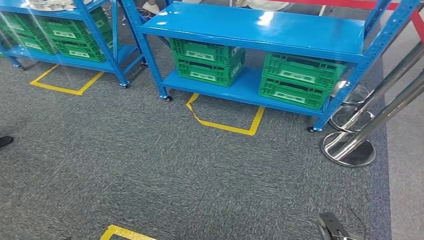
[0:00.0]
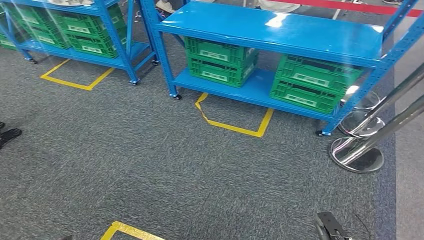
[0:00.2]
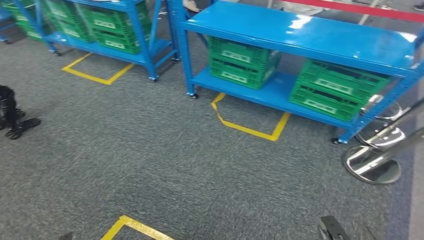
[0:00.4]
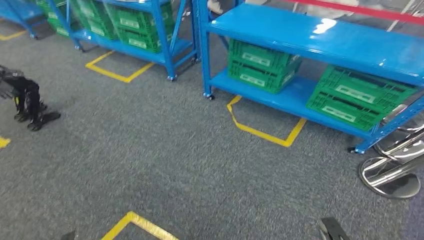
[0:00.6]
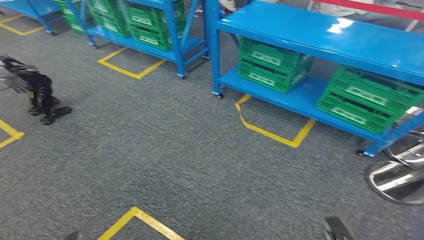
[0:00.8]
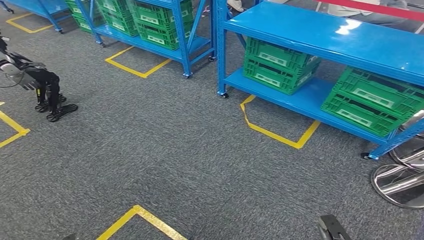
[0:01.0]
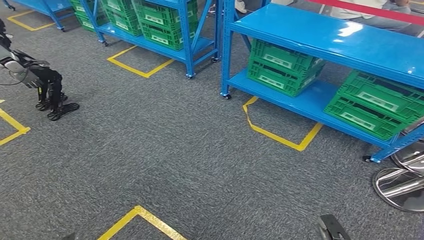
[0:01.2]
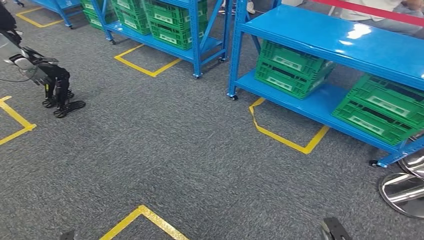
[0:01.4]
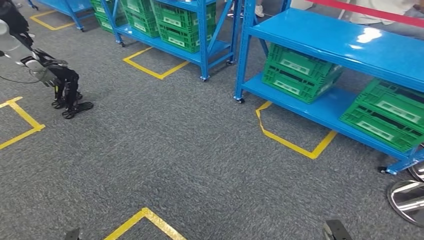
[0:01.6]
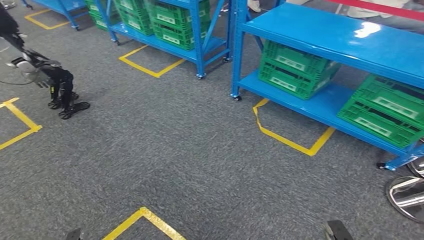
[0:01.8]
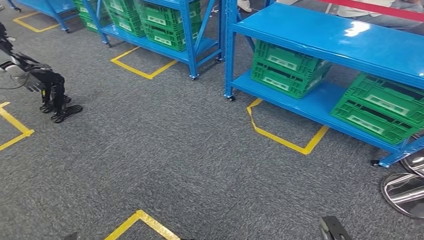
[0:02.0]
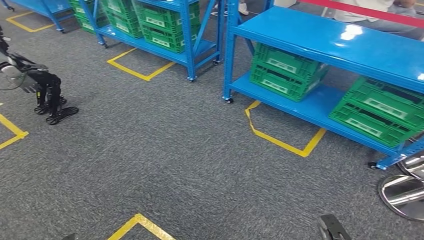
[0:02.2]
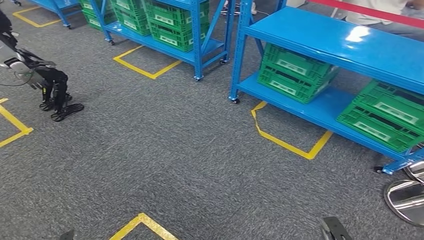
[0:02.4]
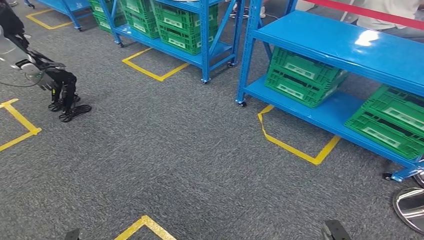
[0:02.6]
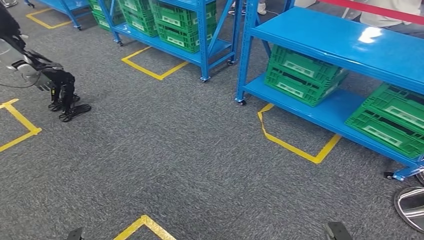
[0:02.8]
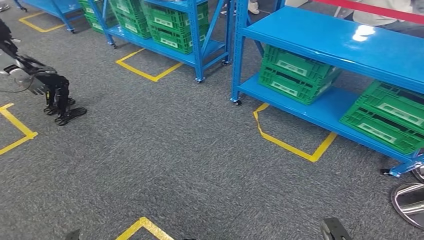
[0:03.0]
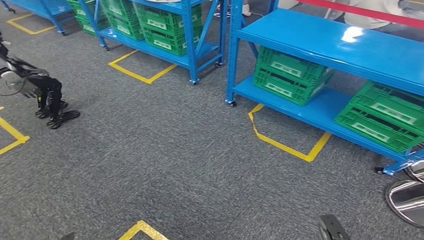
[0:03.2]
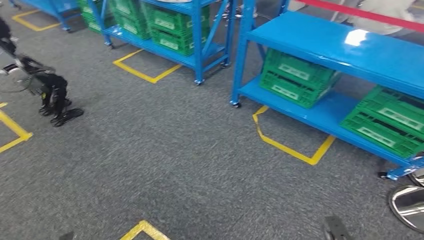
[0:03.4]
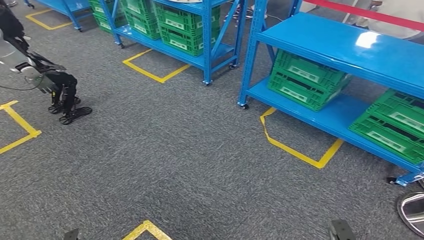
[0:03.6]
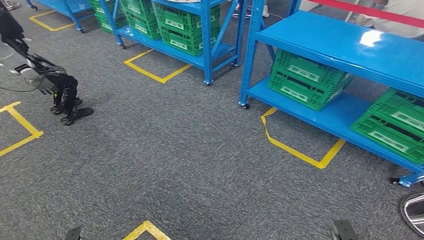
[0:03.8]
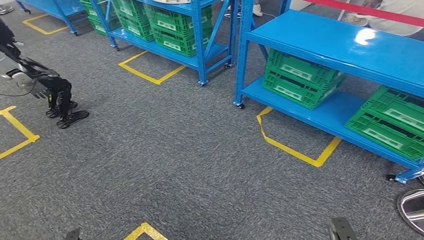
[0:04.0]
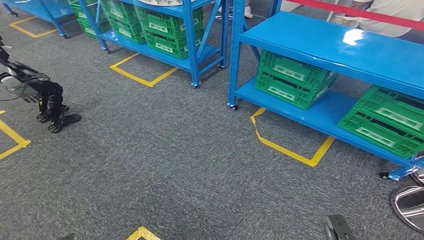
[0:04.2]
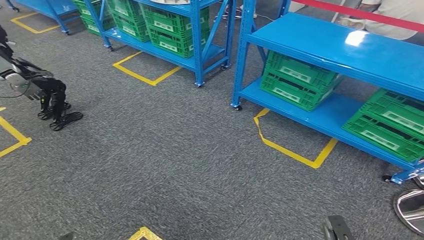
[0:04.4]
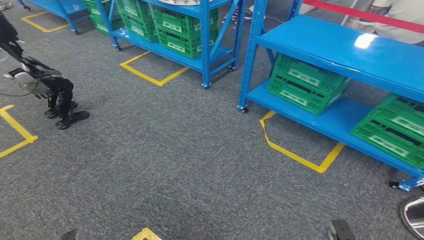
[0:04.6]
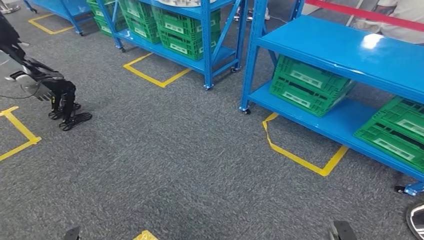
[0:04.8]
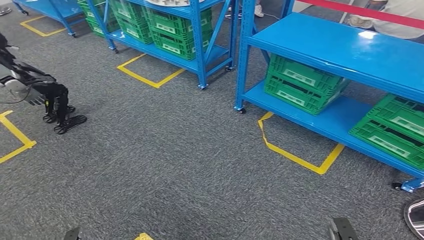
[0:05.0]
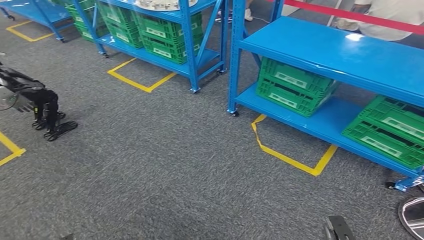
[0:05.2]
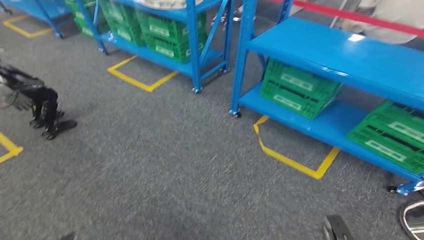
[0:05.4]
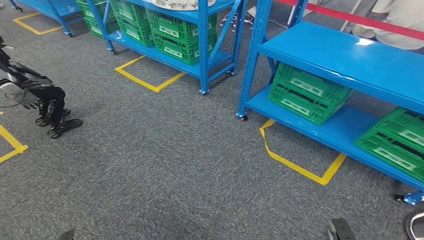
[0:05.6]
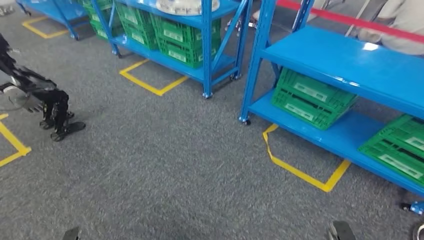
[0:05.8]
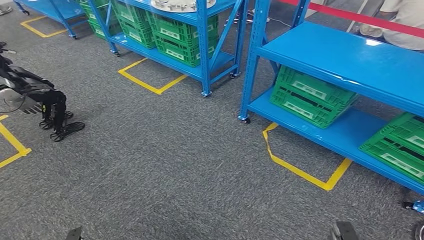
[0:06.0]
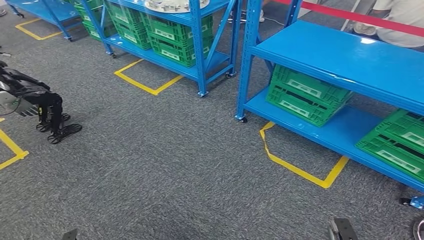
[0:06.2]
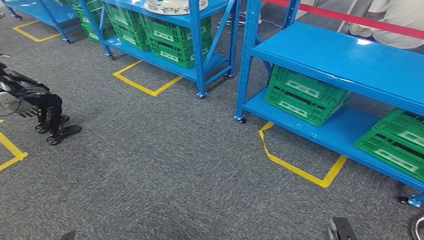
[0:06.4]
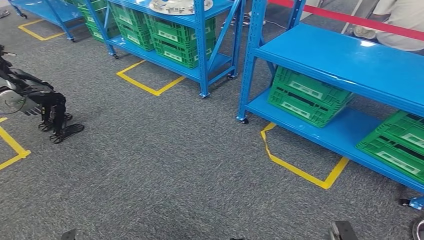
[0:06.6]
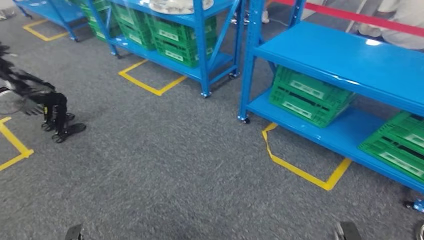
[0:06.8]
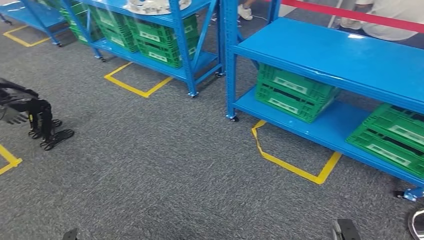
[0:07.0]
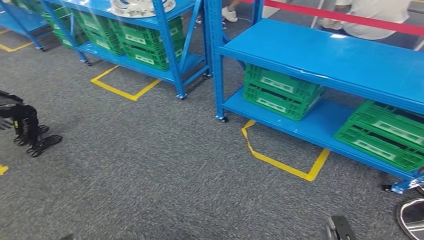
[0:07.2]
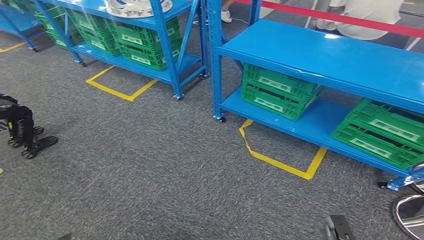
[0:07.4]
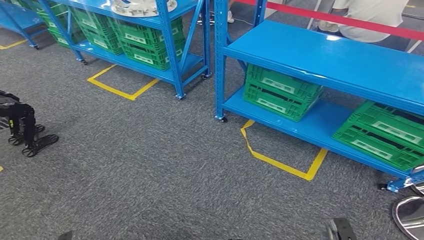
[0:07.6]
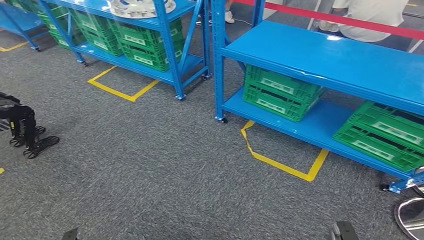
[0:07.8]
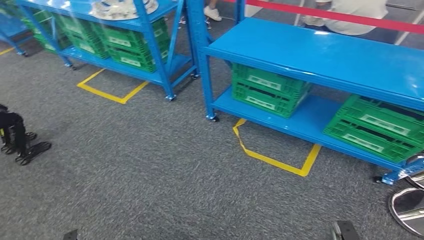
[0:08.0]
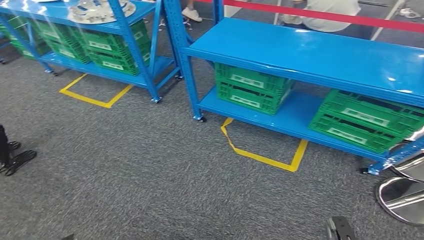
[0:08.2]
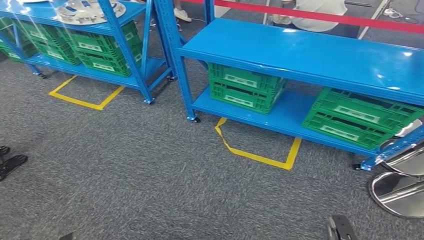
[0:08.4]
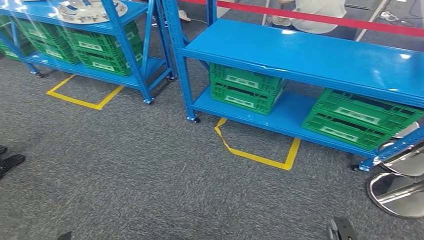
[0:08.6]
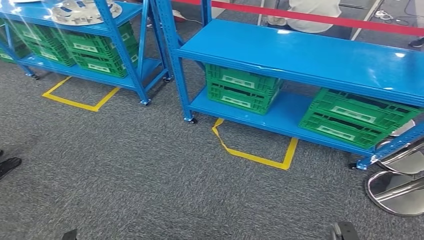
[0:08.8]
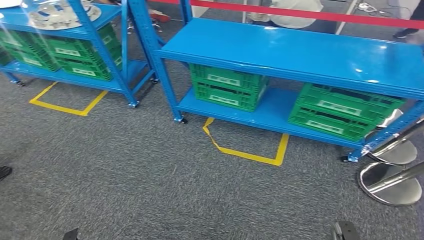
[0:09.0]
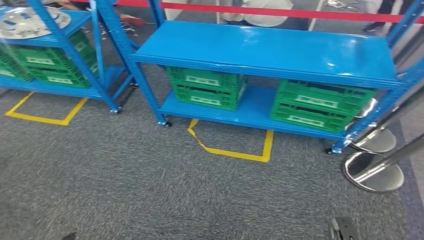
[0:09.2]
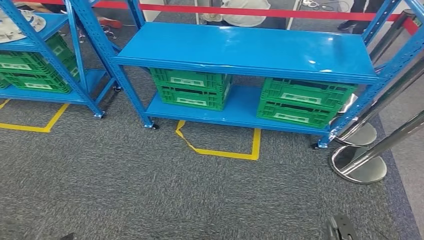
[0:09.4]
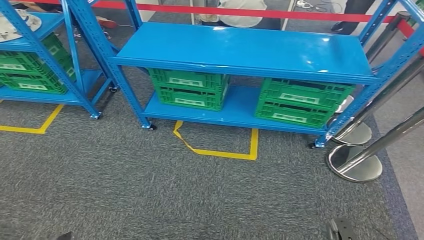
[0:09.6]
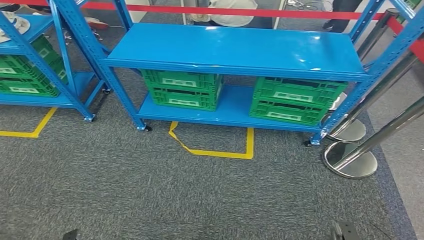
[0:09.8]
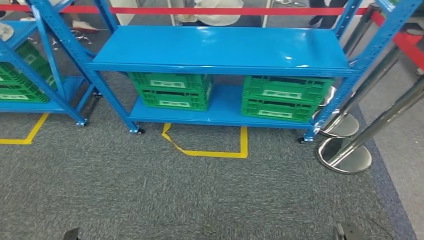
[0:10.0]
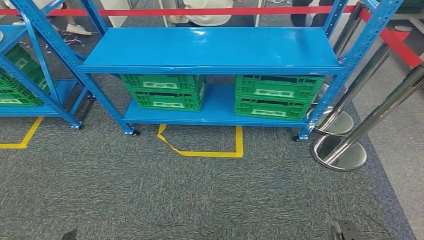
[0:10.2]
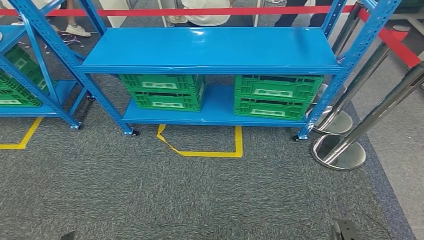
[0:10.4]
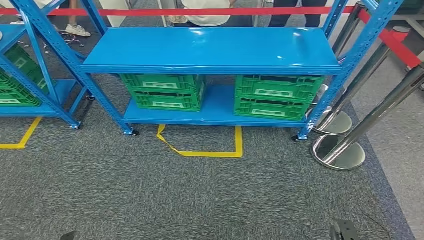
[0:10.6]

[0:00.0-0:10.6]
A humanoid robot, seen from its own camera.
Step, 0:00.0 to 0:10.4: Return to the initial position at the workbench.
0:01.6 to 0:03.0: Both hands stay put.

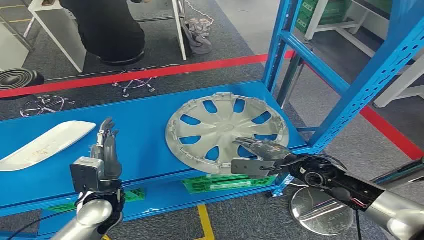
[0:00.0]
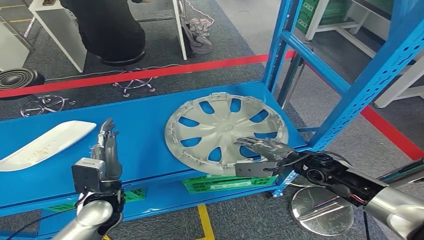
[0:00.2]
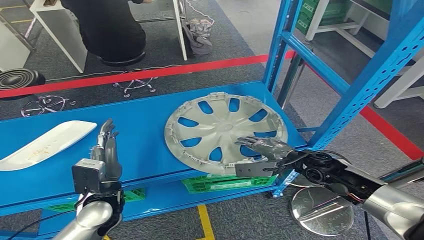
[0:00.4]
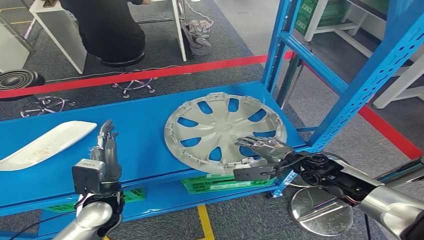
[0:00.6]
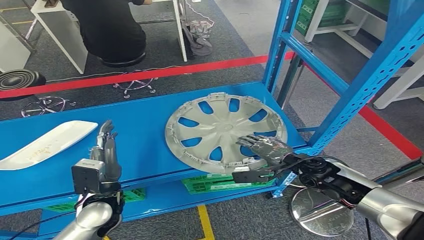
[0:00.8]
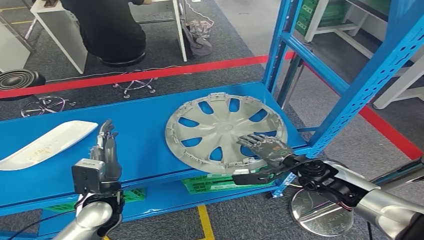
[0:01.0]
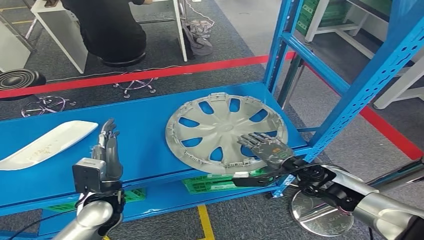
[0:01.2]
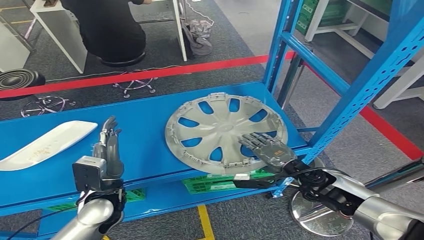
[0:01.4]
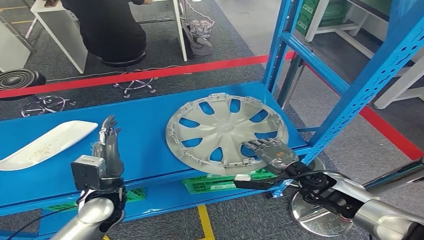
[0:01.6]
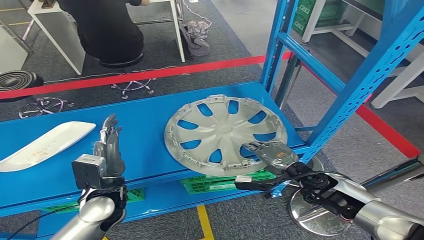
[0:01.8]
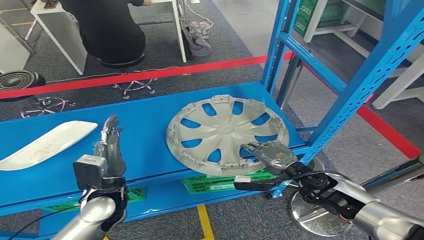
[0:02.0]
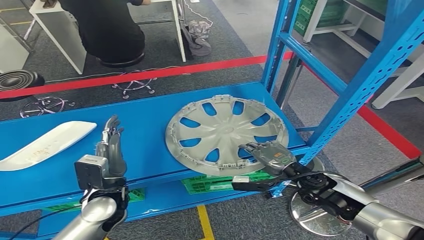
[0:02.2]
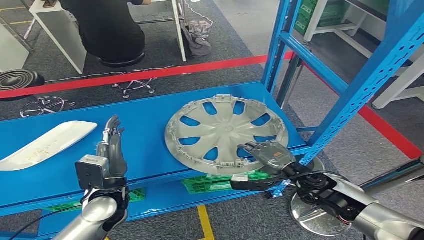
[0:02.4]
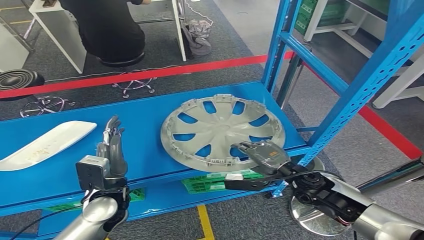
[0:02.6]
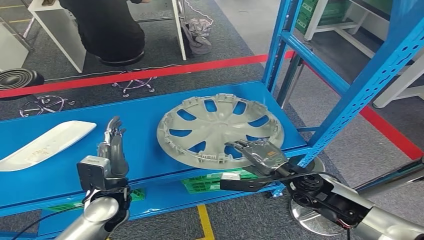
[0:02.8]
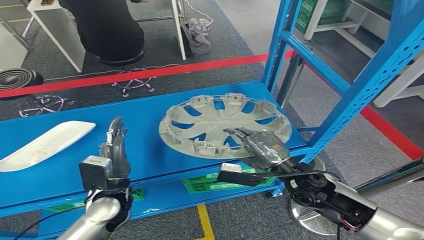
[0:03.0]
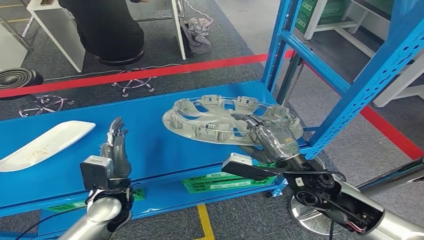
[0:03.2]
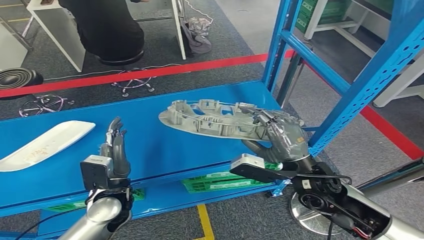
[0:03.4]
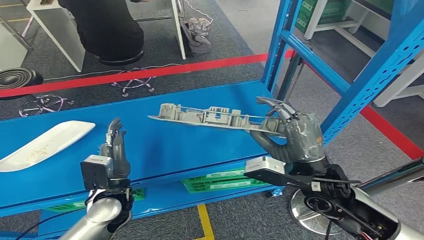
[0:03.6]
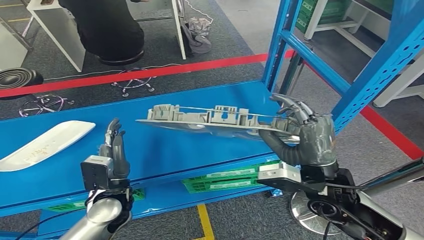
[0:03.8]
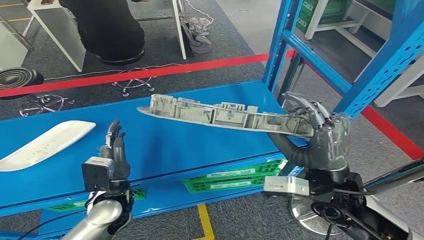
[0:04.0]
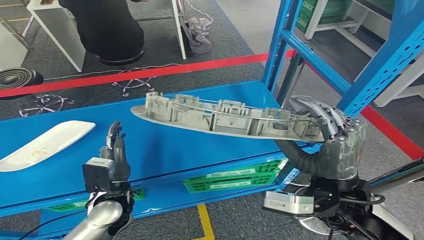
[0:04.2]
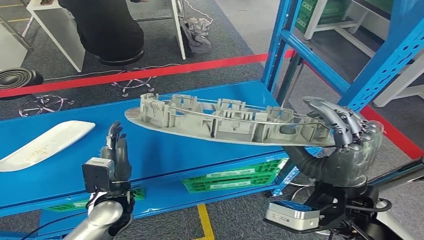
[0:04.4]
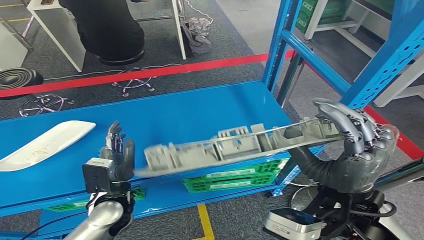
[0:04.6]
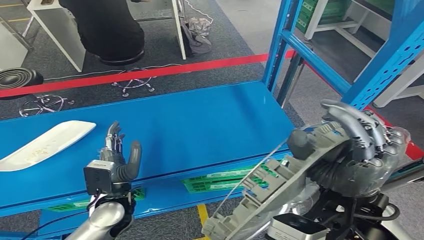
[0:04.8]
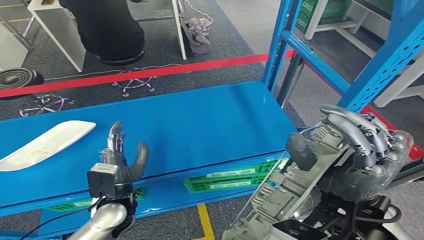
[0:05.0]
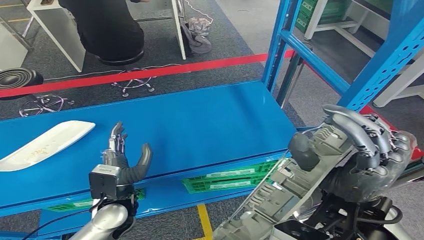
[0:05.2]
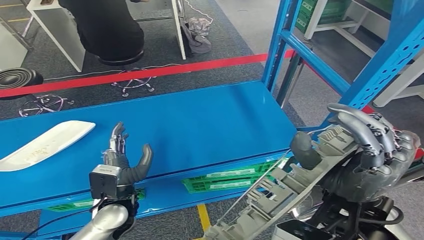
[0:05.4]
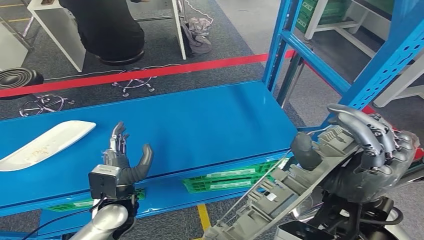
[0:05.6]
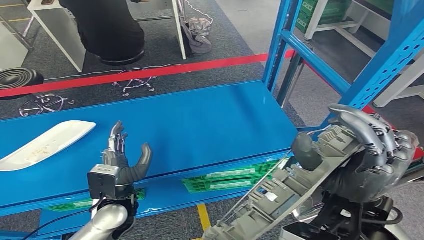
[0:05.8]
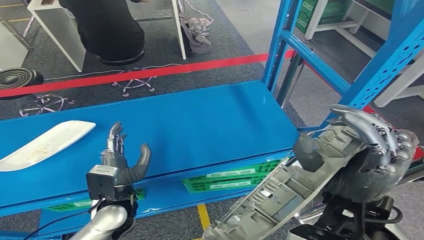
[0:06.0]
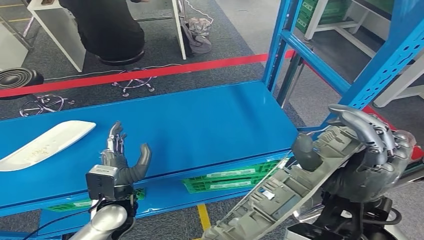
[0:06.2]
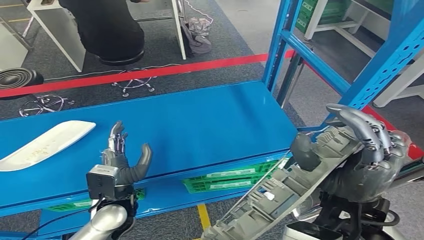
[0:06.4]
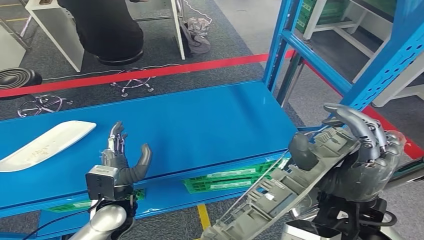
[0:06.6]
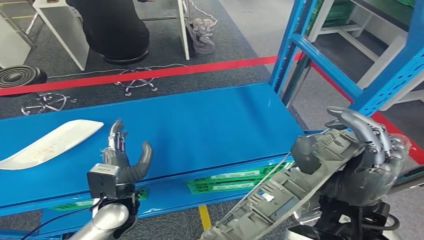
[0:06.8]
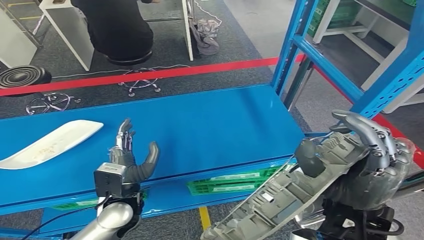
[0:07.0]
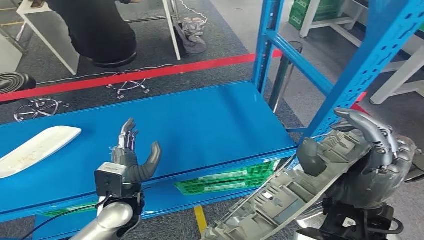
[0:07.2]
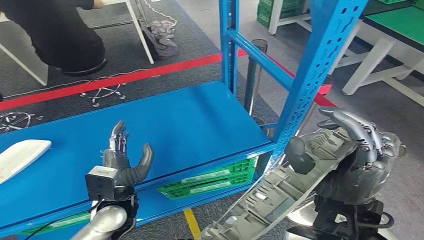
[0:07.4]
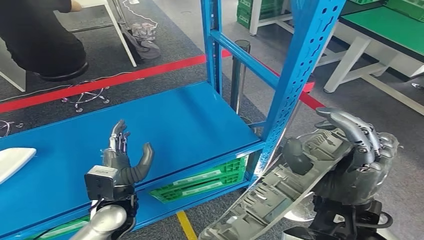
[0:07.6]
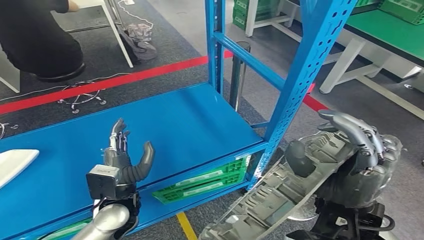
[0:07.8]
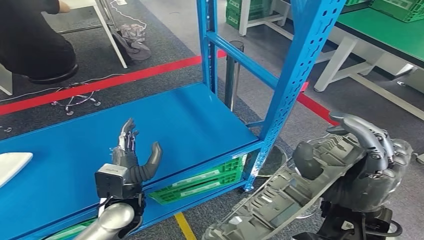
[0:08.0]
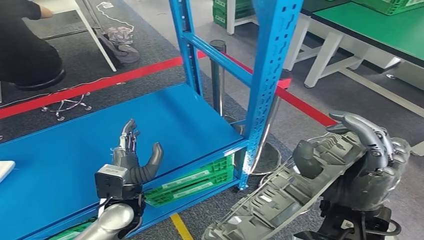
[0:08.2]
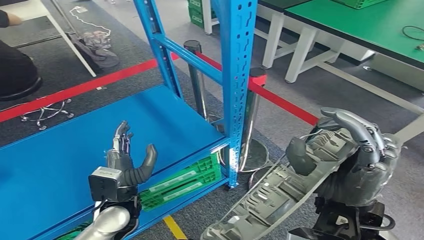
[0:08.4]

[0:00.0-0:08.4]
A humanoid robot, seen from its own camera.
Step, 0:00.0 to 0:05.6: Pick up the small component from the shelf.
0:01.4 to 0:02.8: The right hand ends up approximately 5 cm from where it was.
0:02.8 to 0:04.2: The right hand shifts approximately 15 cm upward and backward.
